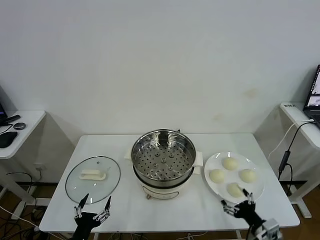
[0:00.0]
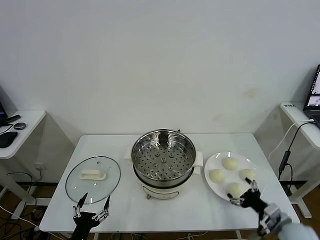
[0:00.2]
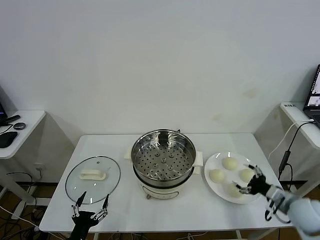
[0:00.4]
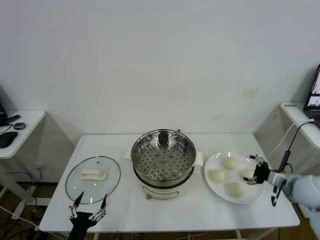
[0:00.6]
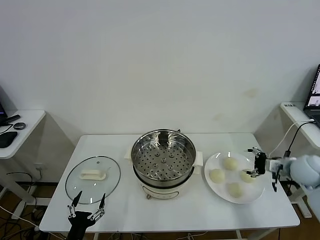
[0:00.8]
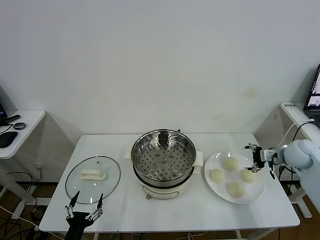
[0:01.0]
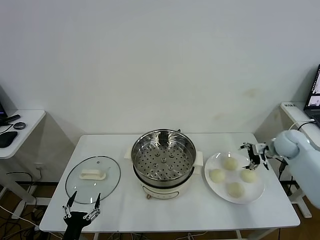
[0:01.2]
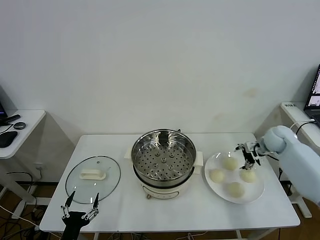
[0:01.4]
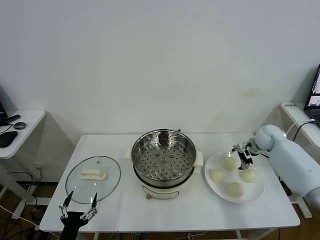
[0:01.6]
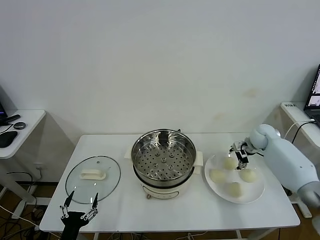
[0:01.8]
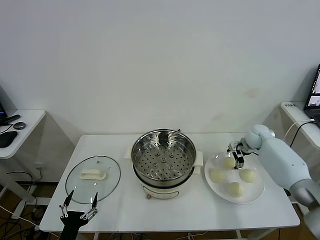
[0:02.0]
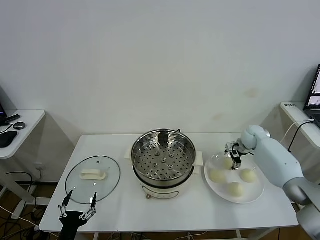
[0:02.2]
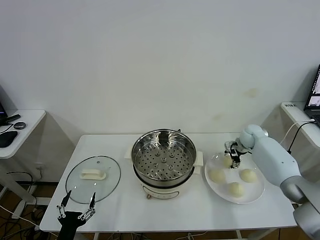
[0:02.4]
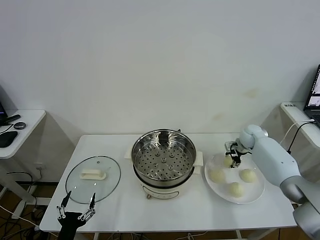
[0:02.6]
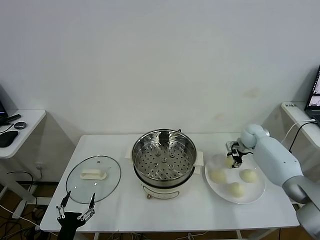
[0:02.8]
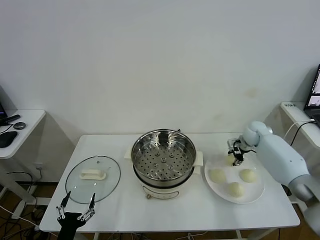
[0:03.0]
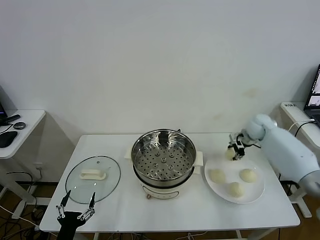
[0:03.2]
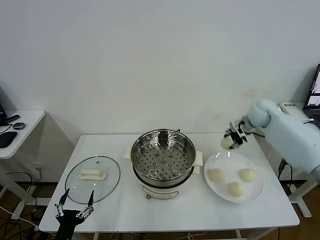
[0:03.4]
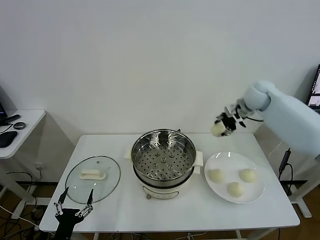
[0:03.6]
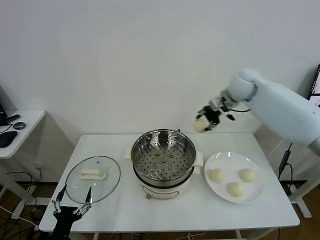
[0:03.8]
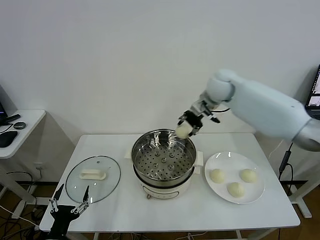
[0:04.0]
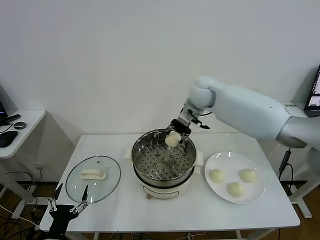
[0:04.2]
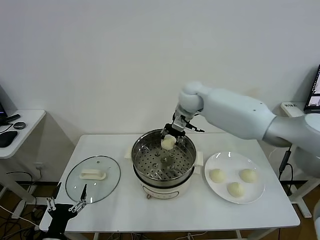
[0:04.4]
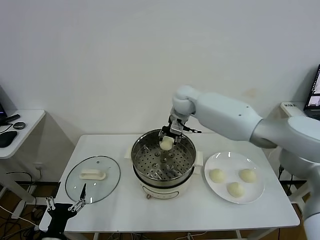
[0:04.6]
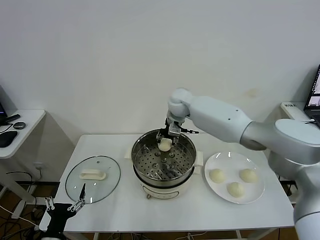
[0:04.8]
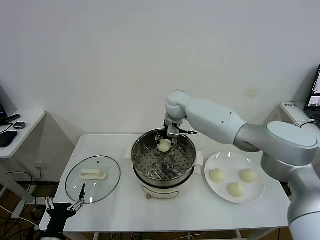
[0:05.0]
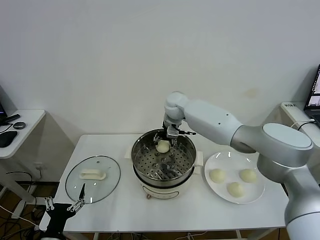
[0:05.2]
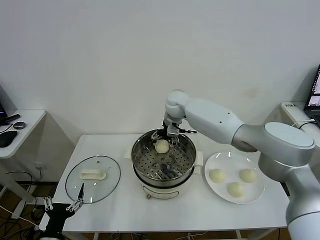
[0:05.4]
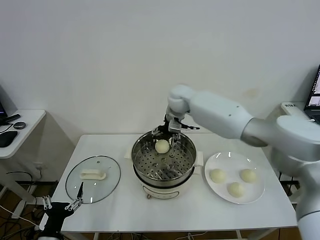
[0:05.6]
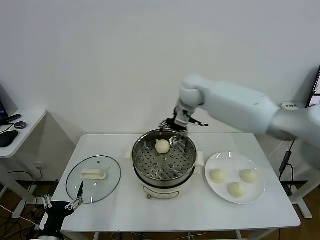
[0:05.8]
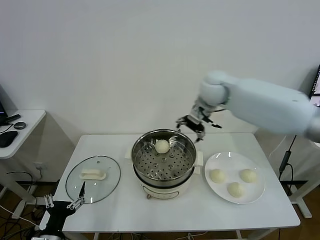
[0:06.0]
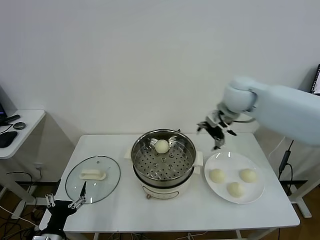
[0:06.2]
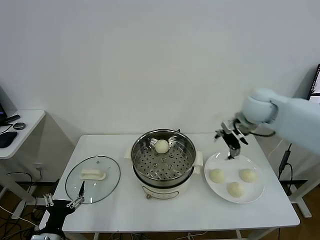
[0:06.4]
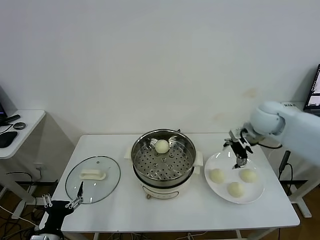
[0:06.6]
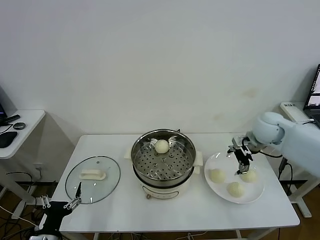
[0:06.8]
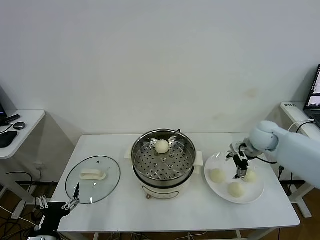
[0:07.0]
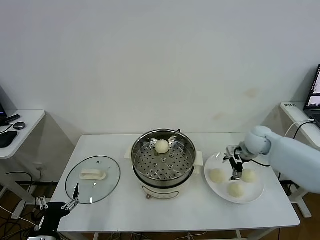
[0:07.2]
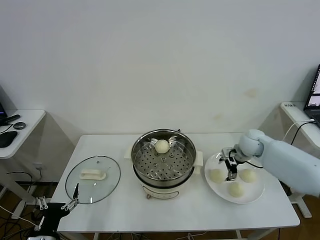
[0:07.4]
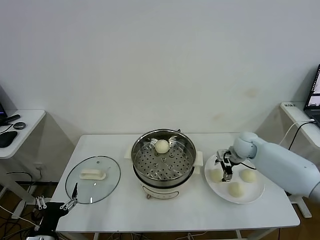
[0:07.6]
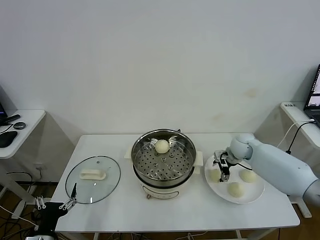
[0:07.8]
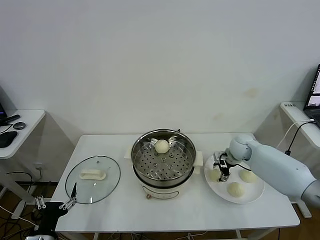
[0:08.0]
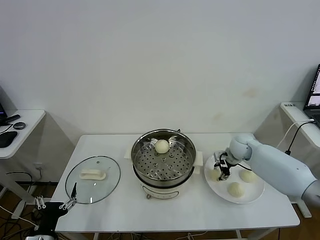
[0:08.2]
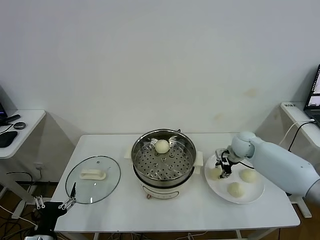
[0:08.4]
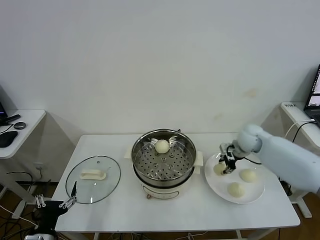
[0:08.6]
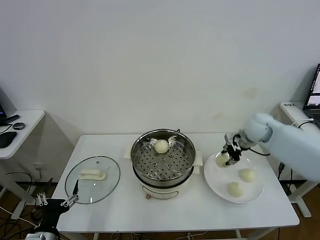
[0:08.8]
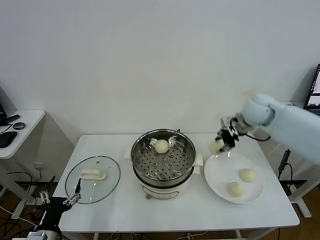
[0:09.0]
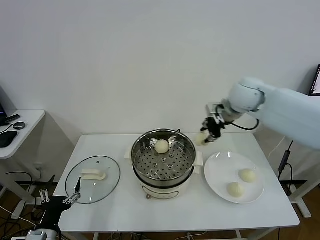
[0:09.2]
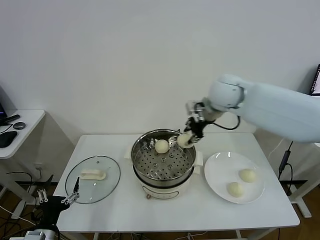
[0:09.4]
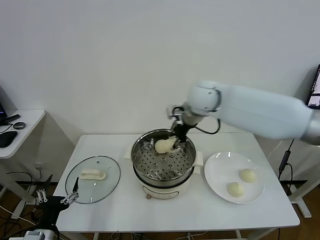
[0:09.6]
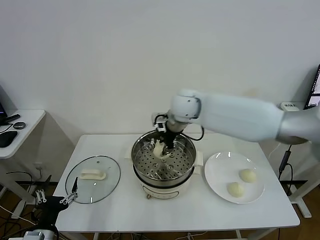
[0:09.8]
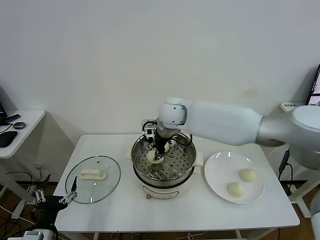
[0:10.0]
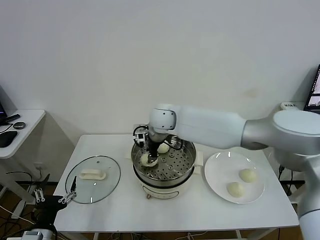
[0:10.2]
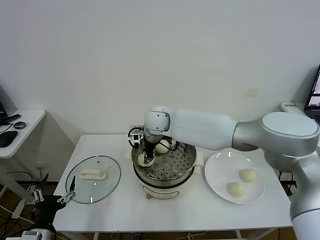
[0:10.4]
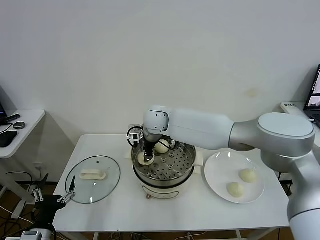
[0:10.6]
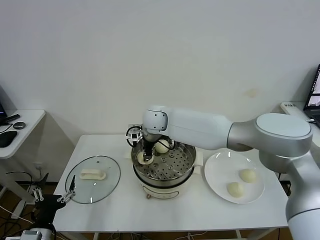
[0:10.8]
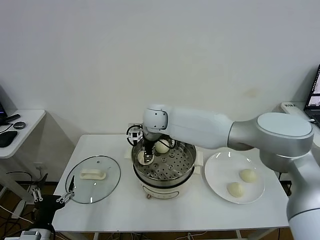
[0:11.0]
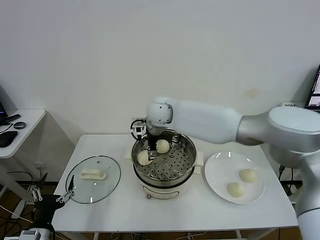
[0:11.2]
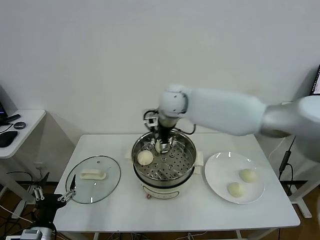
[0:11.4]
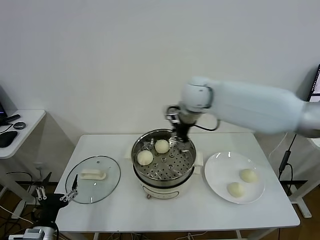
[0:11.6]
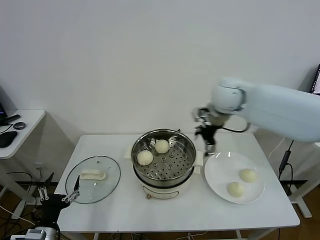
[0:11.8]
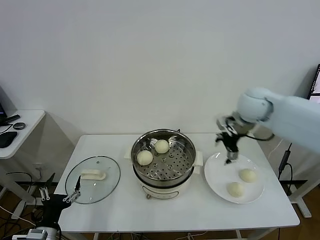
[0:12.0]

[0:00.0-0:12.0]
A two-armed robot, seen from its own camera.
Task of the whole recording: take steamed baozi put them in steamer.
Step, 0.0 to 2.4 s: Grasp the baozi in the plate with right gripper.
Step, 2.6 to 5.4 s: Place the baozi on the steamer with right gripper.
Step, 5.6 to 8.2 s: Grasp the baozi in the plate with right gripper.
Step, 8.4 to 11.2 s: Place the baozi on the steamer with right gripper.
1.6 to 3.0 s: The right gripper closes.
3.0 to 4.4 s: The right gripper travels to the left and upward by approximately 30 cm.
4.4 to 6.0 s: The right gripper travels to the right, upward and backward by about 15 cm, and opens its fingers.
6.0 to 7.6 s: The right gripper heads downward and to the right, covering about 25 cm.
7.6 to 9.0 s: The right gripper shifts approximately 20 cm upward, and closes its fingers.
9.0 to 10.4 s: The right gripper goes about 30 cm to the left.
10.4 to 12.0 s: The right gripper is displaced to the right by approximately 30 cm, and opens.

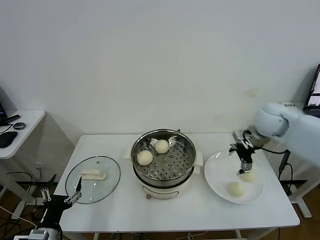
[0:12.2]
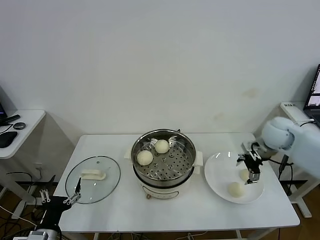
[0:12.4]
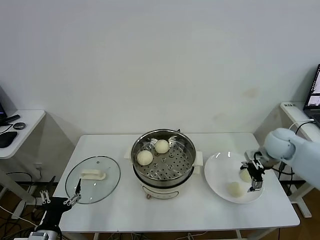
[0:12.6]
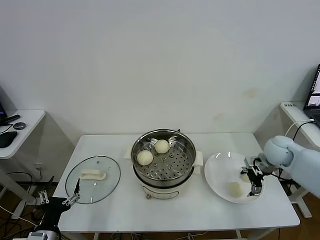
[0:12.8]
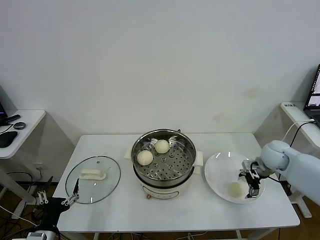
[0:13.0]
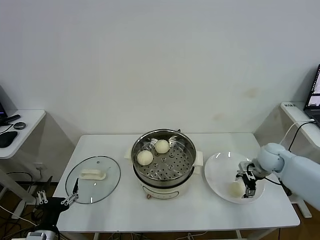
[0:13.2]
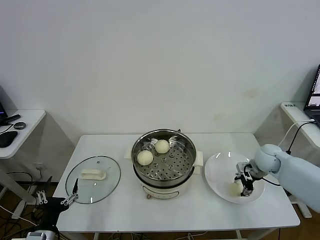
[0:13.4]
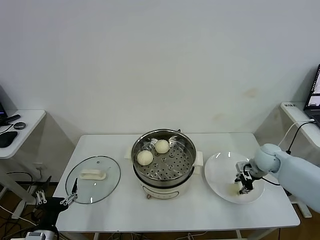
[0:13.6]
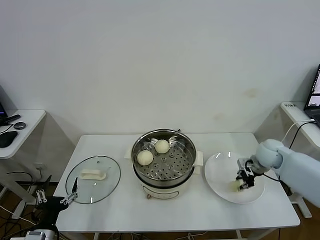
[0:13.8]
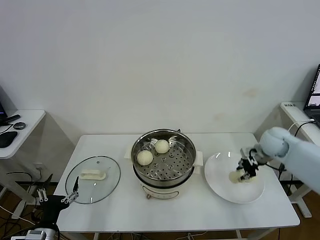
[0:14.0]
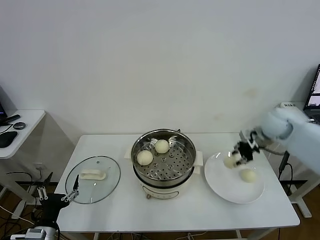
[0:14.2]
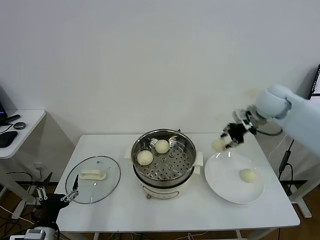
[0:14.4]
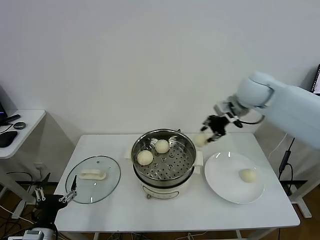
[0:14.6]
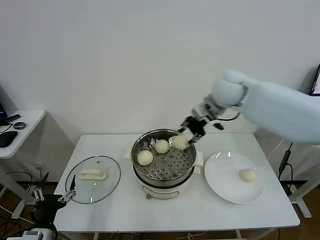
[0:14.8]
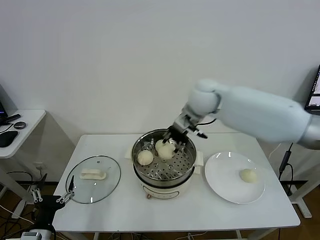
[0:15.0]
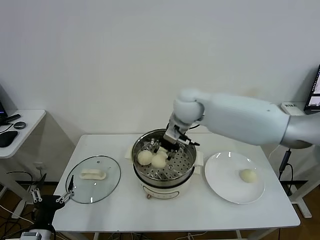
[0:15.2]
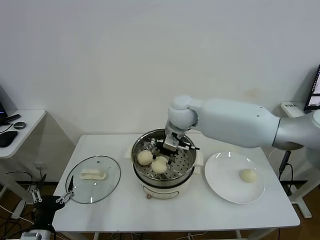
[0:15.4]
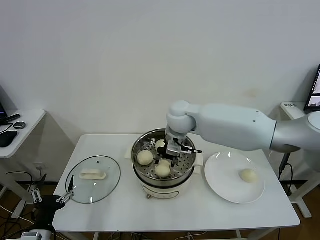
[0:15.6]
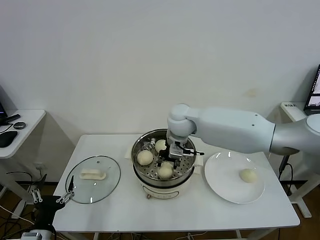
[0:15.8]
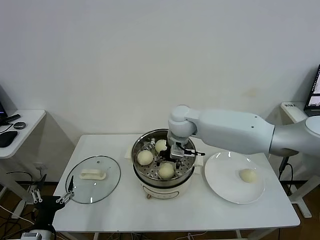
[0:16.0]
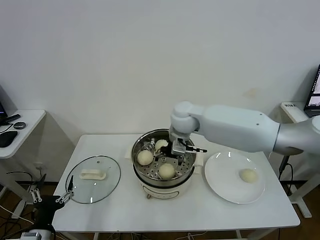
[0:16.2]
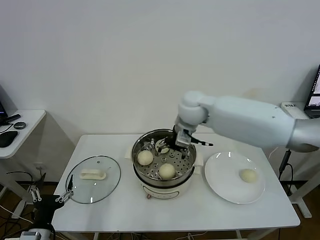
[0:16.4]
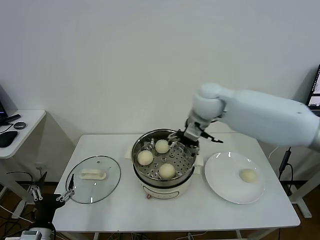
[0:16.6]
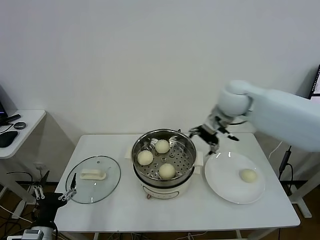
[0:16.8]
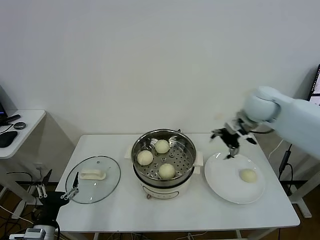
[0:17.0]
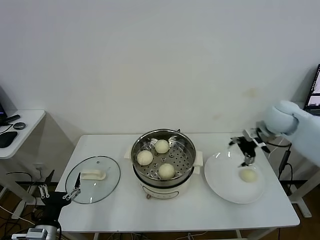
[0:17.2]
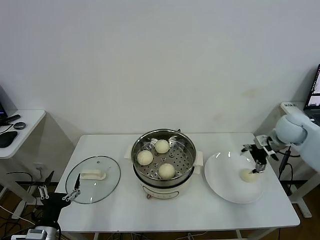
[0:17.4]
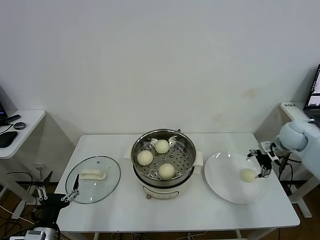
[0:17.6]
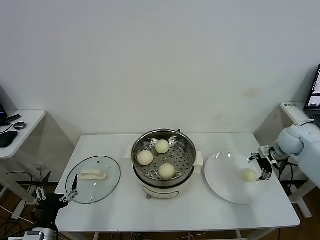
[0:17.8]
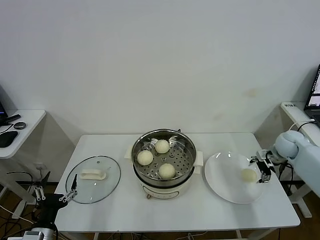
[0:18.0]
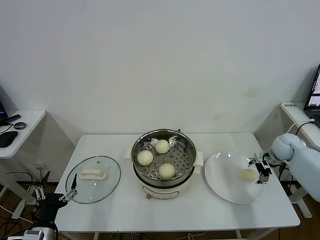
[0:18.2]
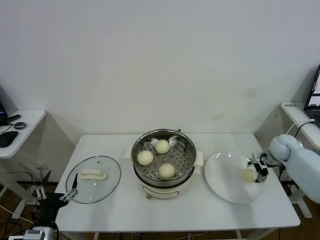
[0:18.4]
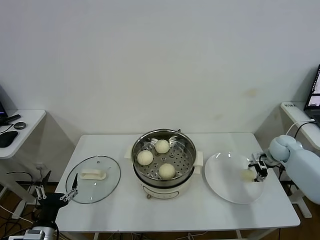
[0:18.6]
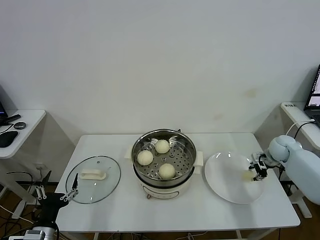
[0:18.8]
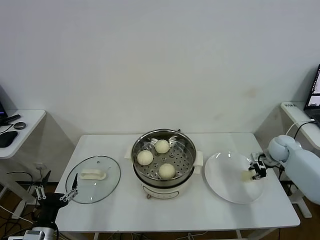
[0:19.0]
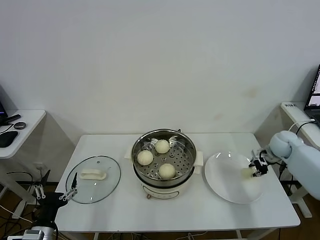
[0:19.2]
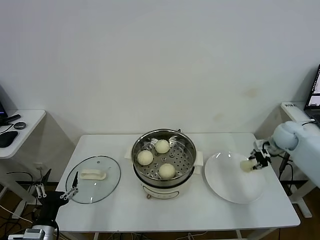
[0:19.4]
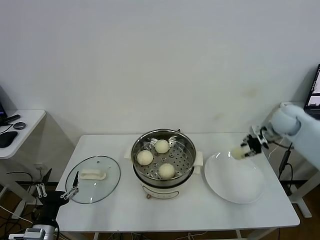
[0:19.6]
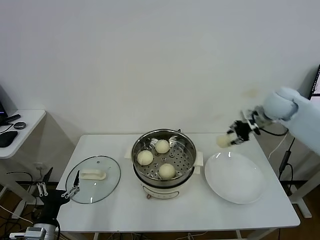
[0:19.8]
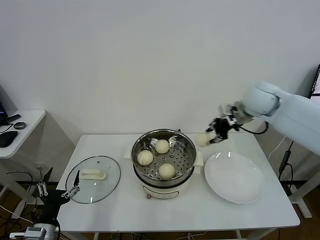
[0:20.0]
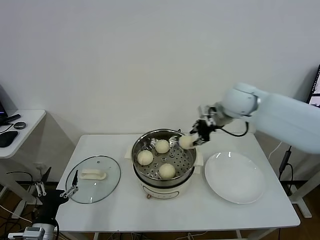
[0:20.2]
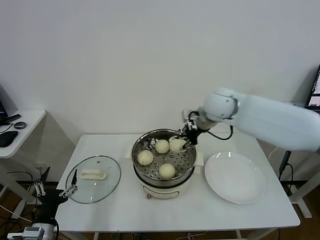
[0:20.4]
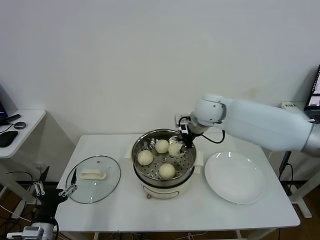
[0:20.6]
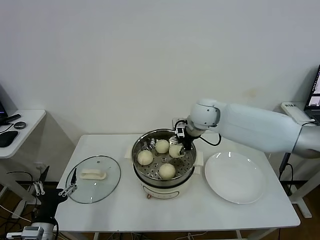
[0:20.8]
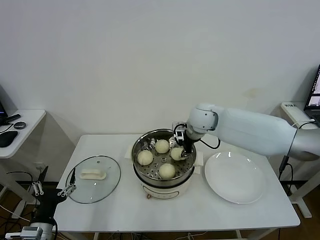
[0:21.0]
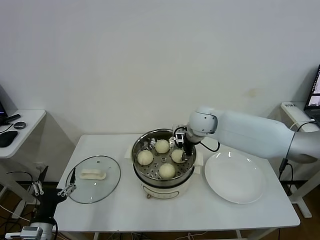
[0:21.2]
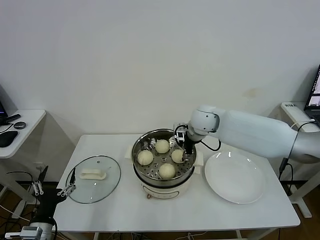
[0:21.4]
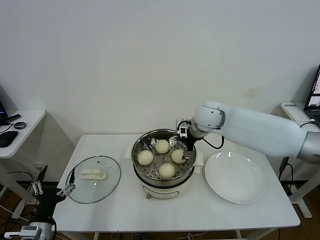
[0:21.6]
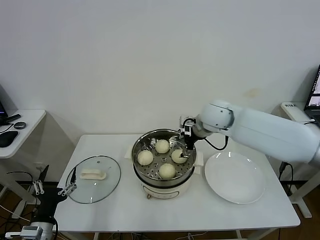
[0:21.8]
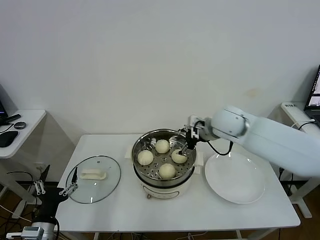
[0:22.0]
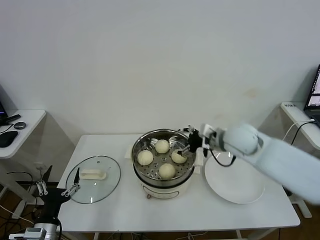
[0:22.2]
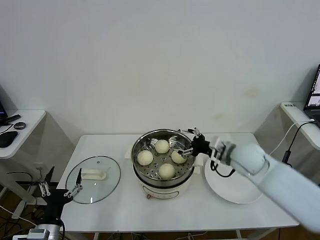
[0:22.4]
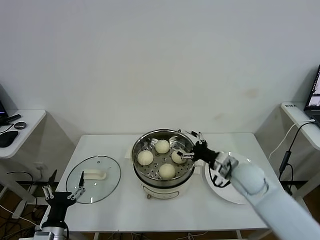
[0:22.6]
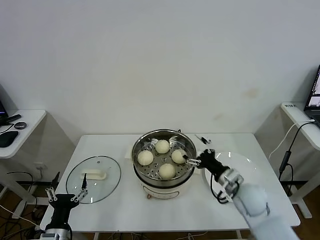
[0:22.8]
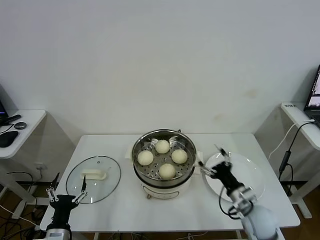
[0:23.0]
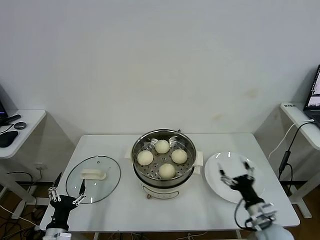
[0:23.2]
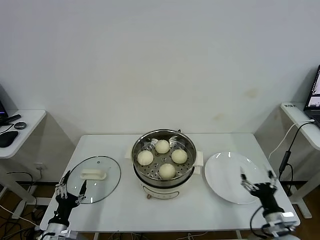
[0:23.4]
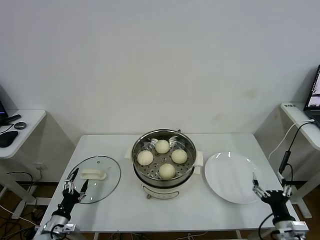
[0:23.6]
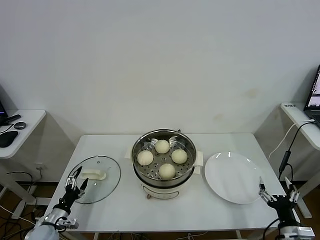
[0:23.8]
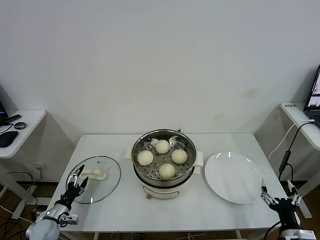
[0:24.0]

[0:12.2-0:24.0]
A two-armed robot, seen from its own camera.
Task of the whole recording: take steamed baozi put them in steamer.
Step, 12.2 to 13.6 s: Grasp the baozi in the plate with right gripper.
Step, 13.8 to 16.2 s: Place the baozi on the steamer with right gripper.
Step, 16.4 to 18.6 s: Grasp the baozi in the plate with right gripper.
Step, 18.8 to 21.6 s: Place the baozi on the steamer with right gripper.
12.2 to 13.6 s: The right gripper is displaced downward by some 15 cm, and closes up.
13.6 to 15.2 s: The right gripper goes approximately 35 cm to the left and upward.
15.2 to 16.6 s: The right gripper travels to the right by some 5 cm, and opens.
16.6 to 18.2 s: The right gripper is displaced to the right and downward by about 40 cm.
18.2 to 19.6 s: The right gripper is displaced upward and to the left by approximately 15 cm, and closes.
19.6 to 21.0 s: The right gripper shifts approximately 30 cm to the left.
21.0 to 22.6 s: The right gripper shifts about 25 cm backward, to the right and downward, and opens up.
22.6 to 24.0 s: The left gripper goes approximately 20 cm forward, downward and to the left, while the right gripper goes about 30 cm backward, to the right and downward.
